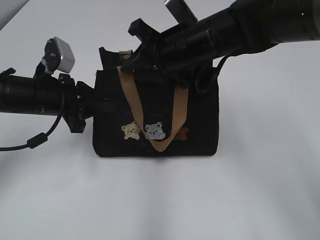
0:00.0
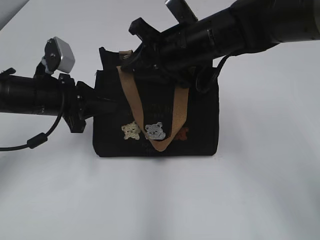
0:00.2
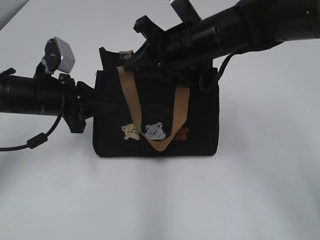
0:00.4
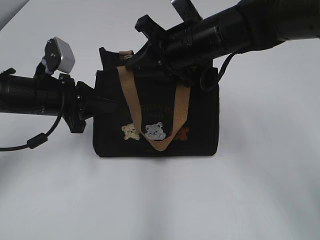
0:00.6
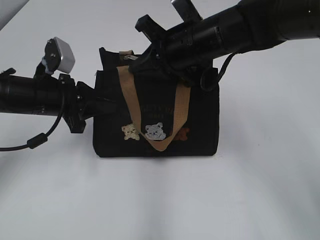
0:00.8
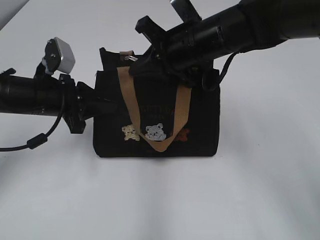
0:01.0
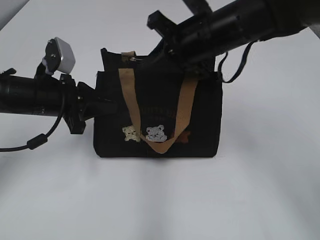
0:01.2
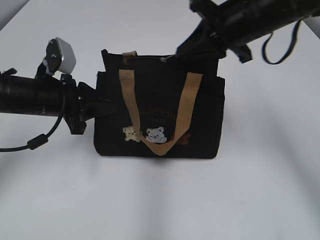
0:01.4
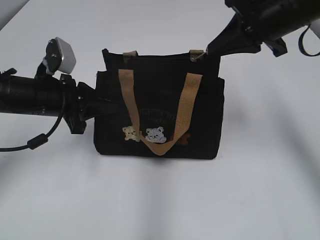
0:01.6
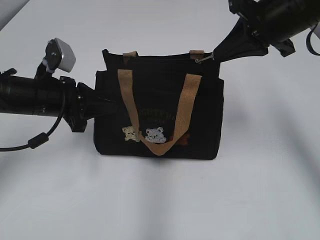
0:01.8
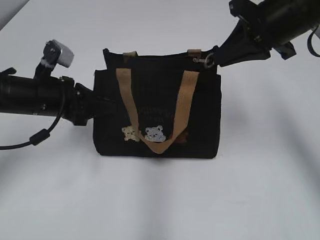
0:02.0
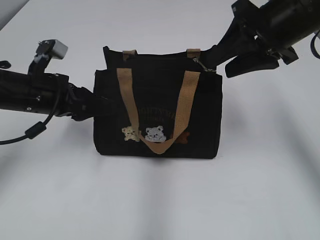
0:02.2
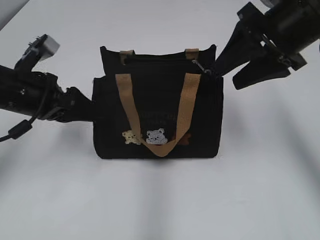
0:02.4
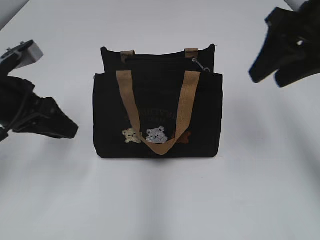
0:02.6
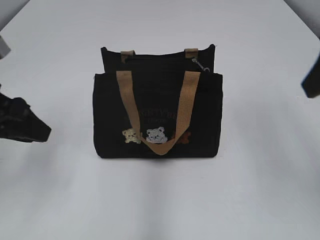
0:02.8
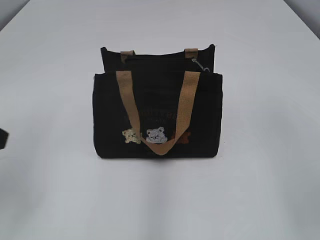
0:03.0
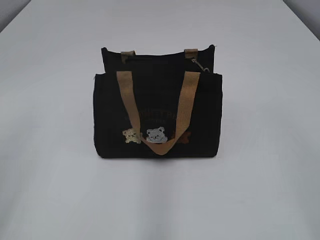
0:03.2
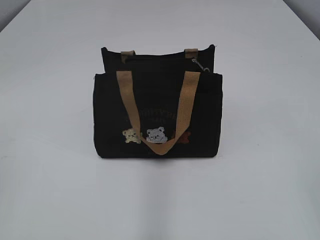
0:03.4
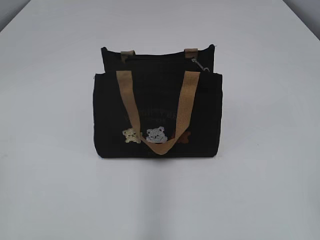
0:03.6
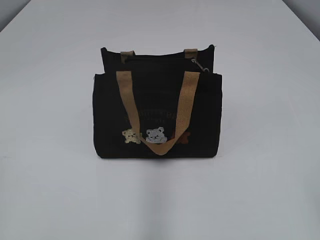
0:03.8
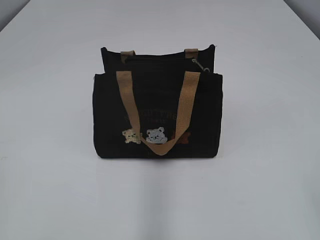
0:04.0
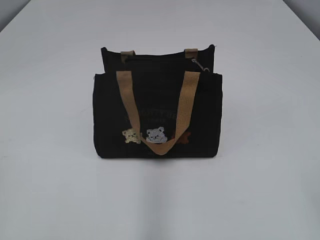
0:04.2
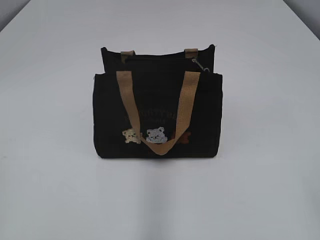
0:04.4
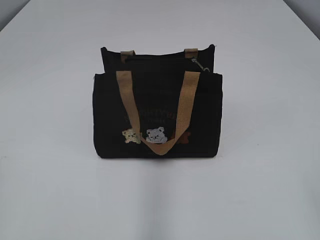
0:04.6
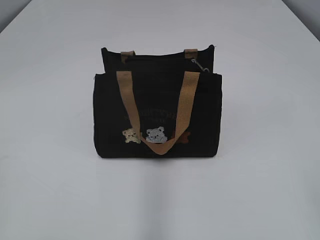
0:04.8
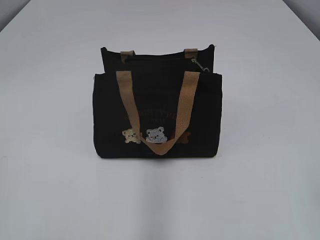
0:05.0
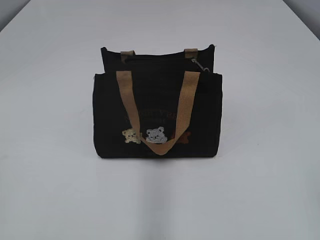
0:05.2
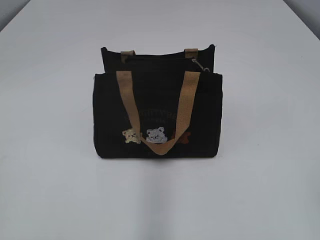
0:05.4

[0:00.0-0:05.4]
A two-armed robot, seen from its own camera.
Step, 0:02.2 to 0:02.4: Hold the bag with your left hand.
0:00.0 to 0:01.4: The right gripper goes some 5 cm to the right, and closes up.
0:01.4 to 0:02.8: The left gripper shifts about 10 cm backward and upward, and opens. Meanwhile the right gripper heads backward, to the right and upward, covering approximately 15 cm, and opens.
0:02.8 to 0:04.0: The grippers both shift backward by about 25 cm.

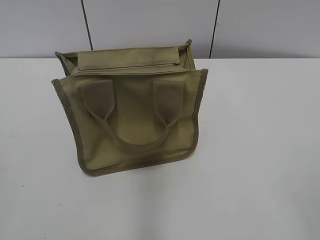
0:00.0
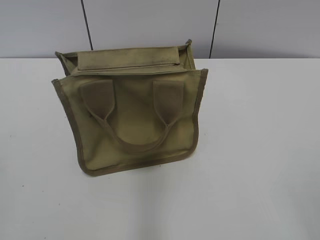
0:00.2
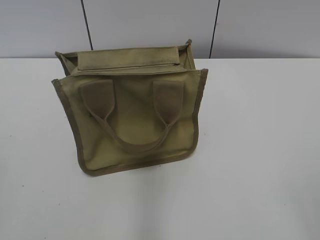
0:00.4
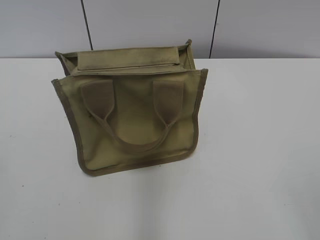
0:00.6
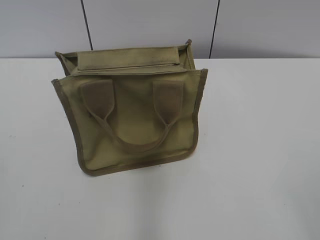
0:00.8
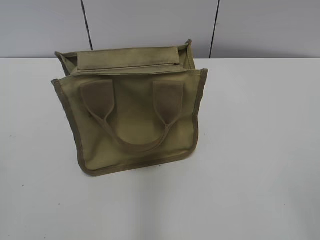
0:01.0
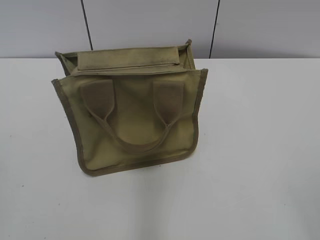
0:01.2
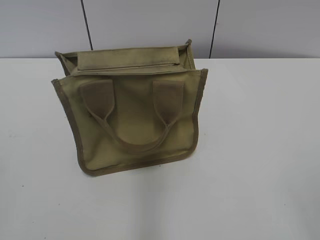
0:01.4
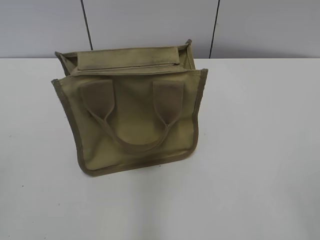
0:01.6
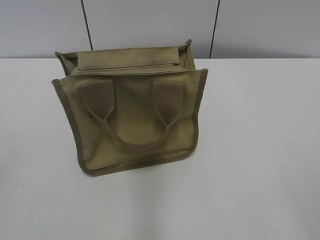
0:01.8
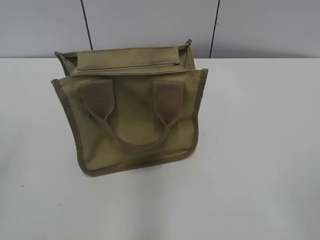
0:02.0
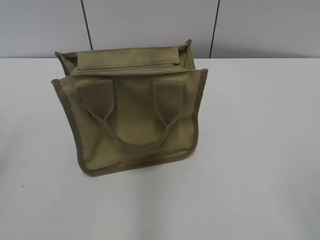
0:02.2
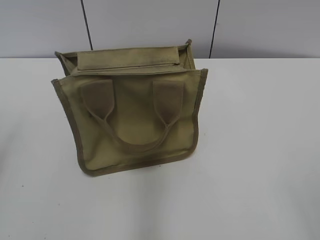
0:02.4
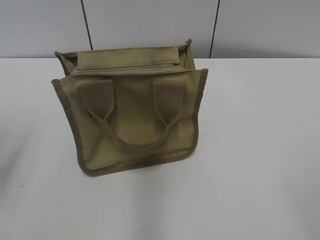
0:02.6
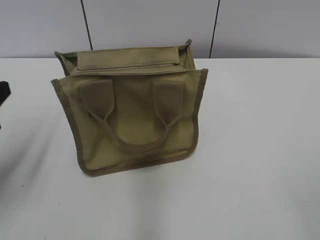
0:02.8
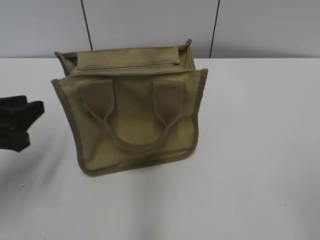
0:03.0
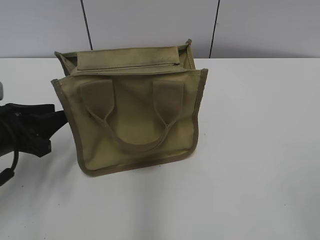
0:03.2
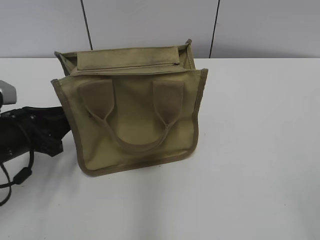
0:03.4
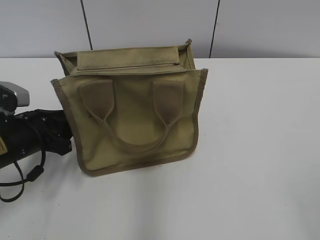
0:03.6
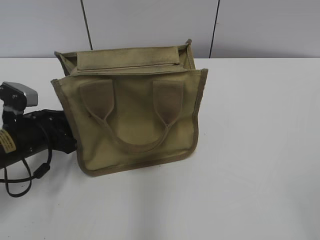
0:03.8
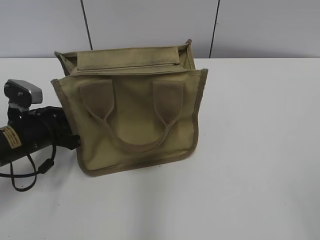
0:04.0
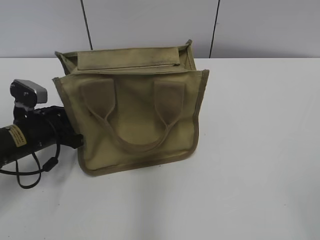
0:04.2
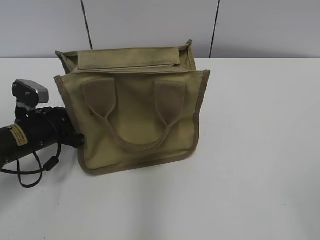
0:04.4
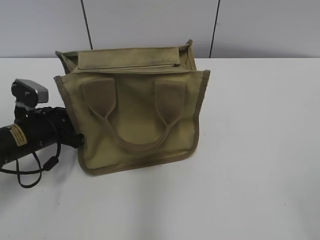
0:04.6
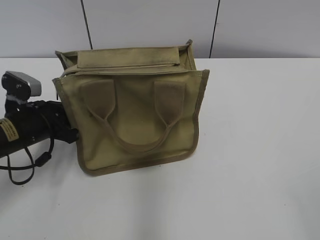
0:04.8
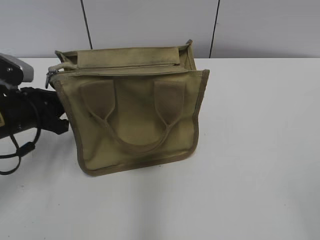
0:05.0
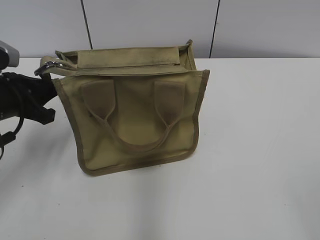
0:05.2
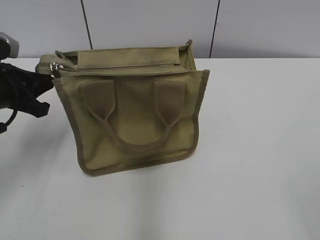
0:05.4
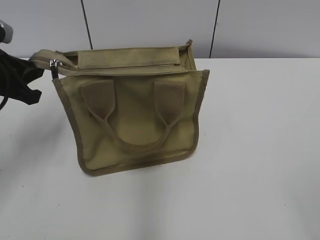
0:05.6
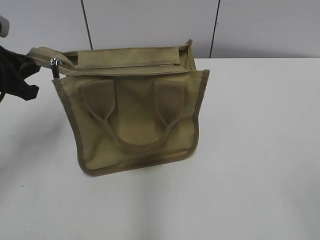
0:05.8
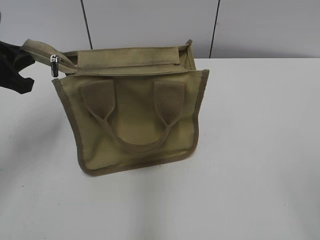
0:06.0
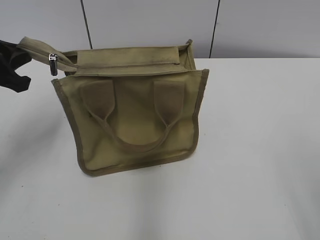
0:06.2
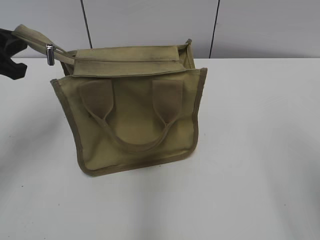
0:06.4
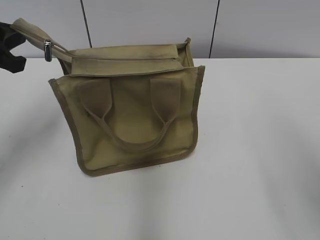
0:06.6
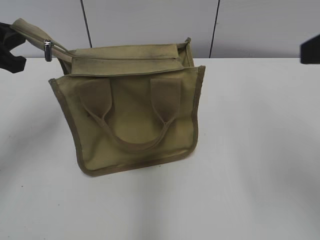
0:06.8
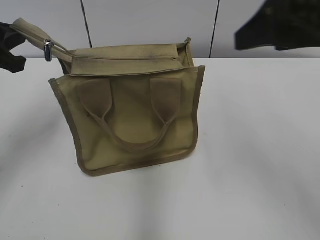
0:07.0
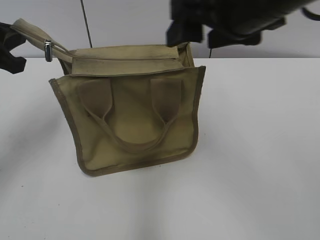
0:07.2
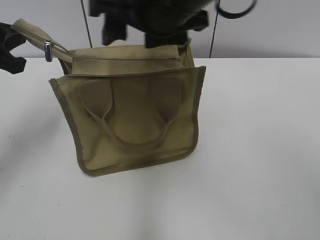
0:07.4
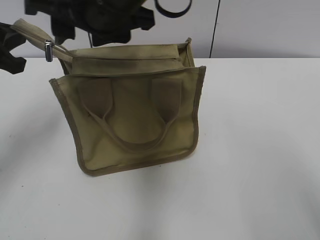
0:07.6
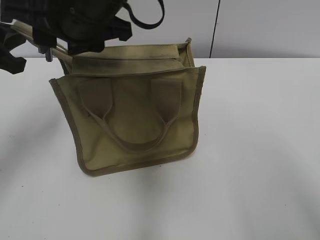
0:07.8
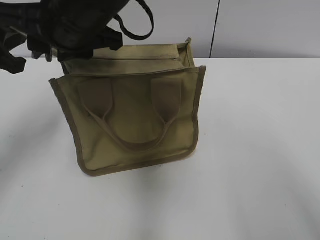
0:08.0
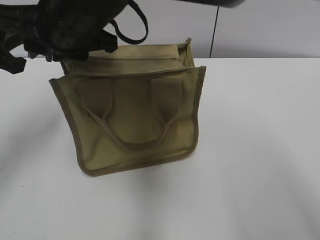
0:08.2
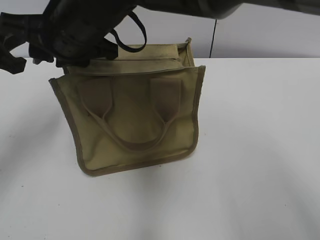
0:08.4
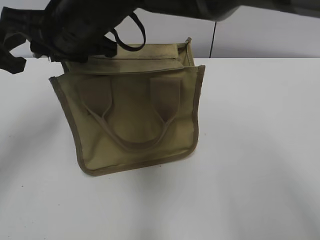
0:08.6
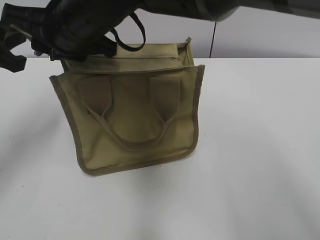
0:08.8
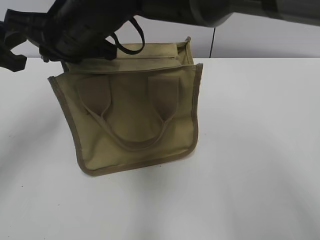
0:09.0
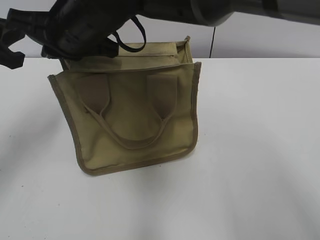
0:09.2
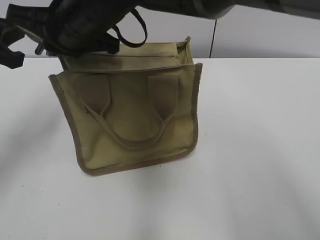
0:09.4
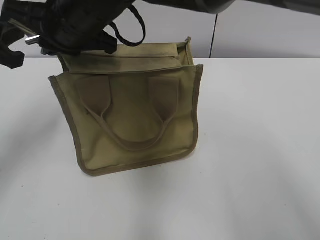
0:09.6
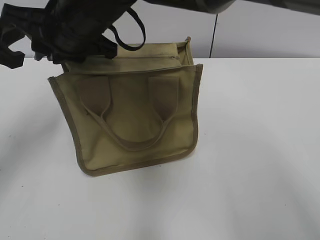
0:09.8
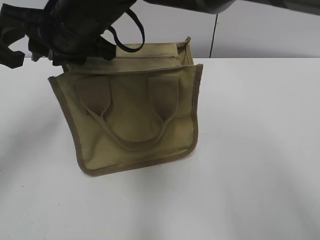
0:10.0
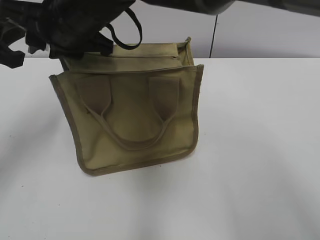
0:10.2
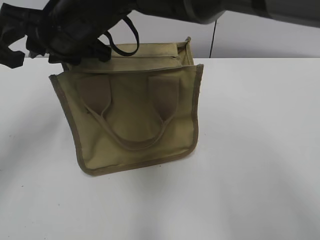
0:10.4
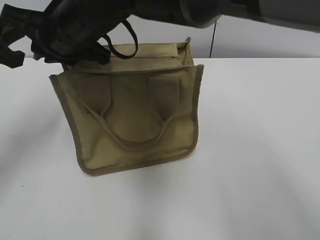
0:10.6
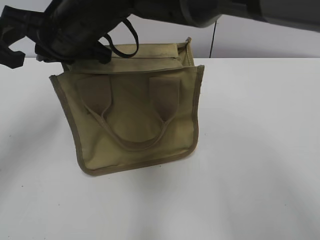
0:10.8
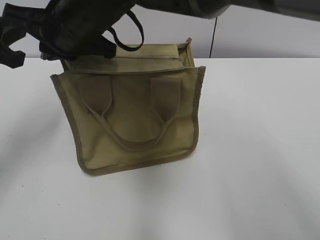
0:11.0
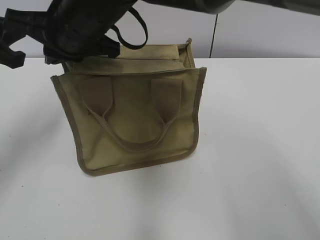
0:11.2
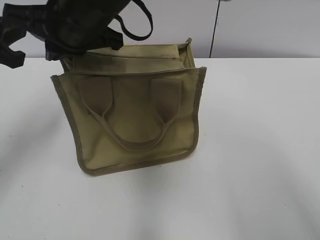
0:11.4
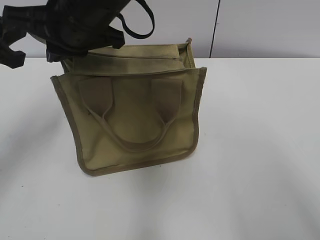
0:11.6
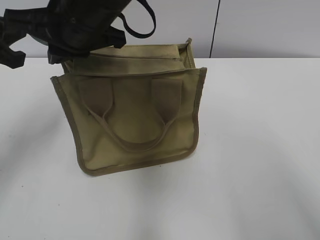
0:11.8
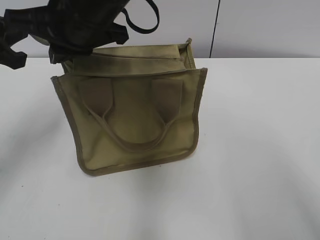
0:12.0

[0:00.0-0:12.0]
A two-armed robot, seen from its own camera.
0:01.6 to 0:03.0: The left gripper travels forward and downward by about 25 cm.
0:03.0 to 0:04.4: The left gripper shifts some 15 cm forward and downward, and closes up.
0:04.4 to 0:06.0: The left gripper shifts approximately 15 cm upward.
0:06.0 to 0:07.6: The right gripper moves to the left and forward, about 40 cm.
0:07.6 to 0:09.0: The right gripper goes some 5 cm downward, and closes up.
0:09.0 to 0:10.4: There are only small adjustments of the grippers.
0:10.4 to 0:12.0: The right gripper closes its fingers.

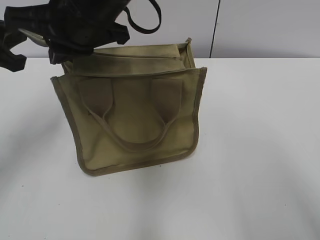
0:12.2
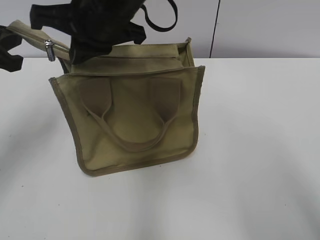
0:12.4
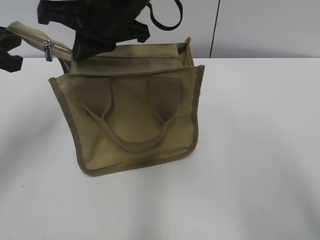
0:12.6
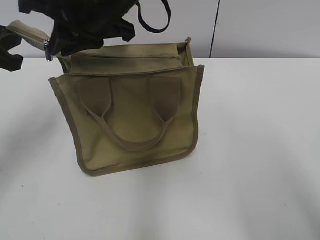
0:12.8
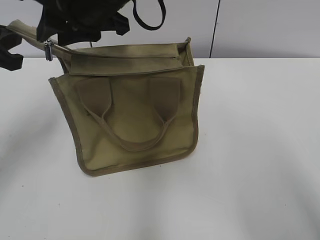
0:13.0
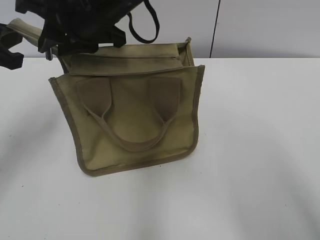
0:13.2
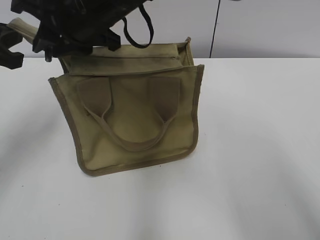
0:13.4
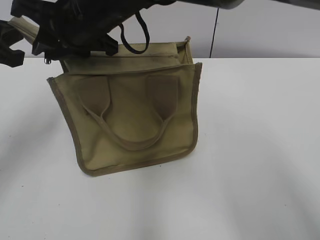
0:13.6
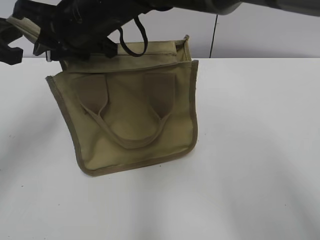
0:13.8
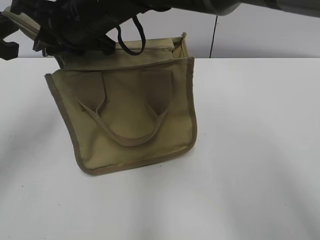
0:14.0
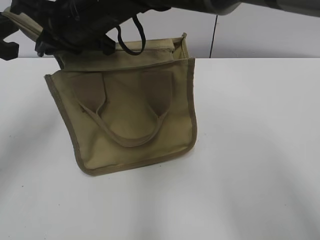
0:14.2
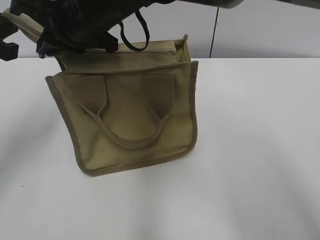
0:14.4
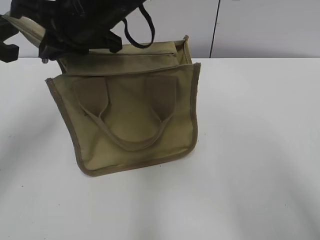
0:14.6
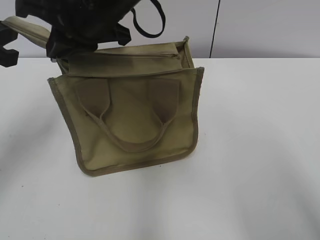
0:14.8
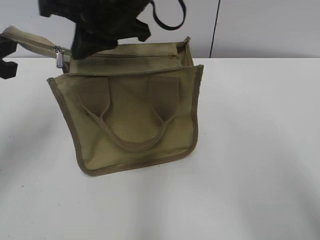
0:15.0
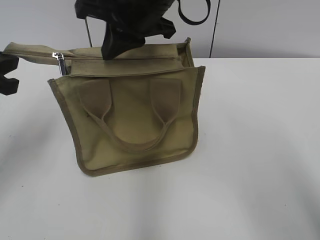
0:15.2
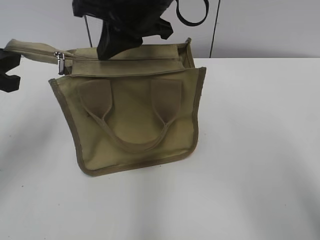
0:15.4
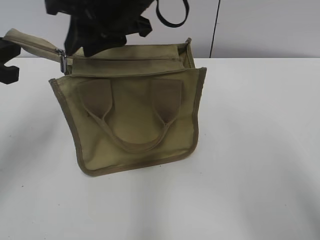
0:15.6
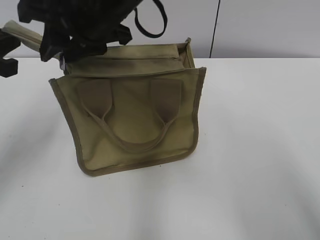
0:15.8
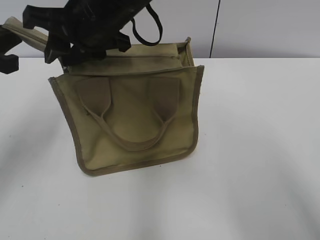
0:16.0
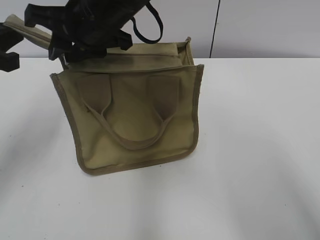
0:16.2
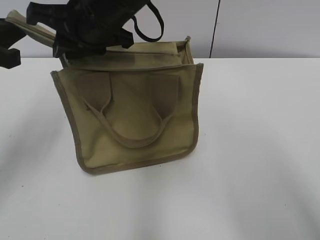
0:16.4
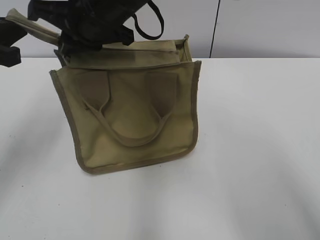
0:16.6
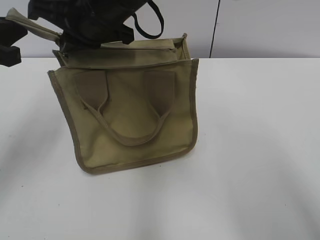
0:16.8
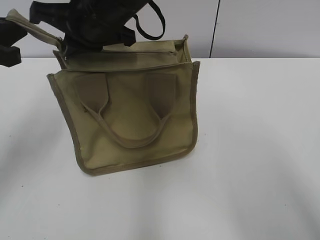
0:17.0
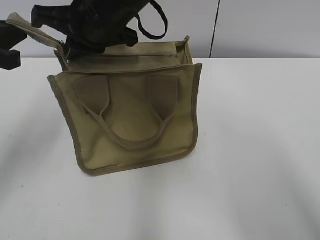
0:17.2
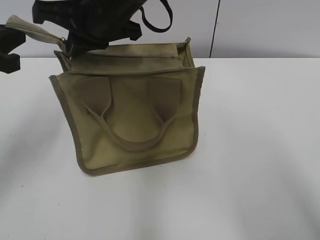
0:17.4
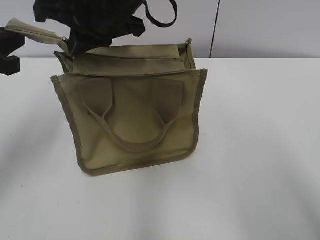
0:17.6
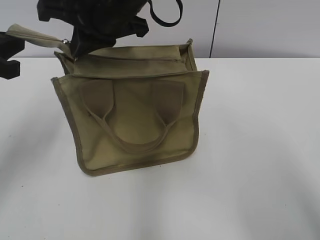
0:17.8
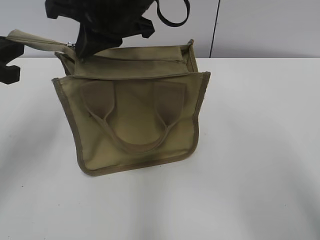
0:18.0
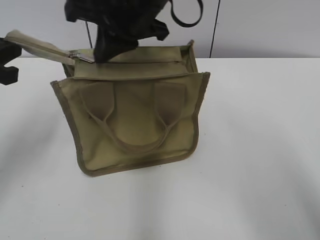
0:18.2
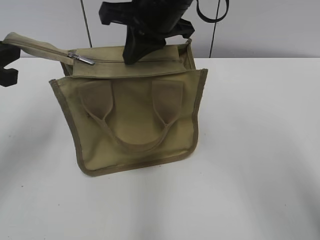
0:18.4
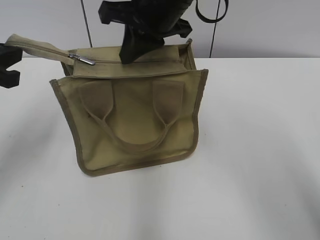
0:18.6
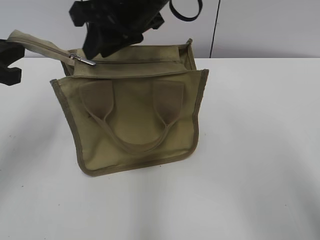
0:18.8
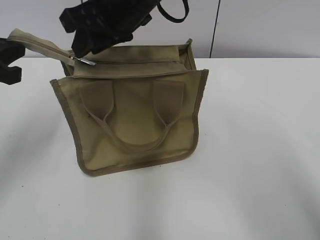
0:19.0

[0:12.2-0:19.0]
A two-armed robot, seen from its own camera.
0:12.2 to 0:13.6: The right gripper opens its fingers.
0:13.6 to 0:15.0: The right gripper closes.
0:15.0 to 0:16.2: The right gripper opens up.
0:16.2 to 0:17.6: The right gripper closes up.
0:17.6 to 0:19.0: The right gripper opens its fingers.
